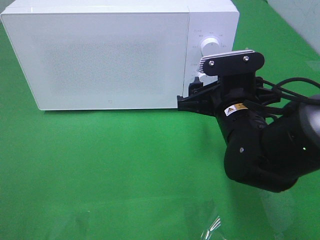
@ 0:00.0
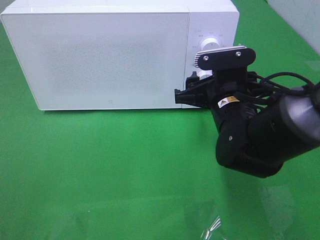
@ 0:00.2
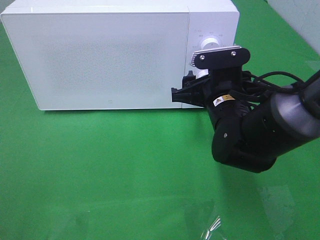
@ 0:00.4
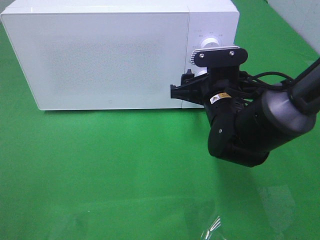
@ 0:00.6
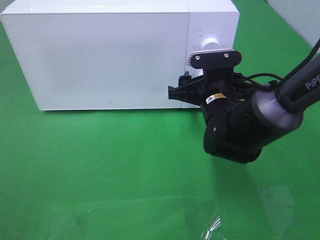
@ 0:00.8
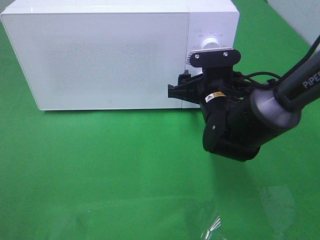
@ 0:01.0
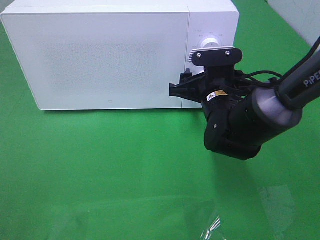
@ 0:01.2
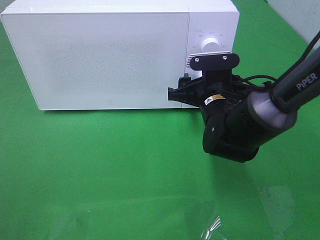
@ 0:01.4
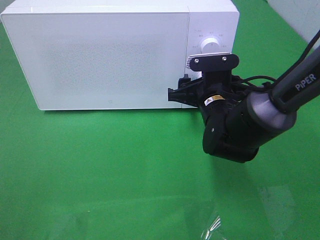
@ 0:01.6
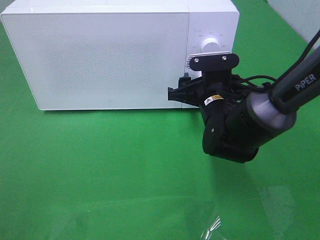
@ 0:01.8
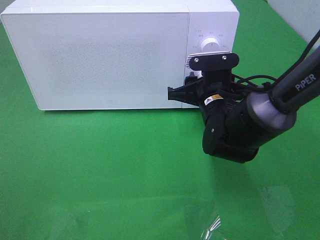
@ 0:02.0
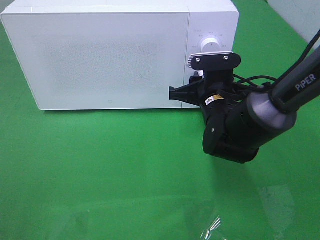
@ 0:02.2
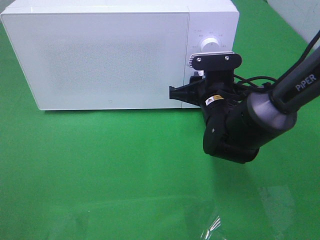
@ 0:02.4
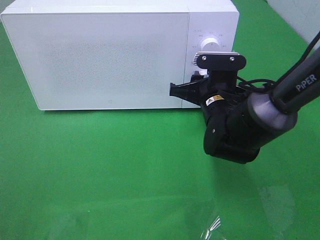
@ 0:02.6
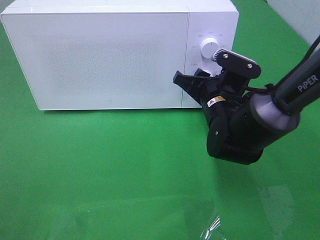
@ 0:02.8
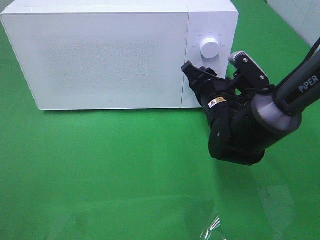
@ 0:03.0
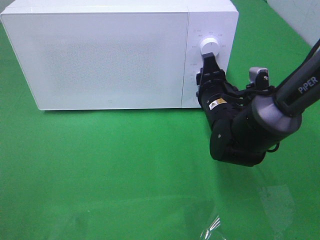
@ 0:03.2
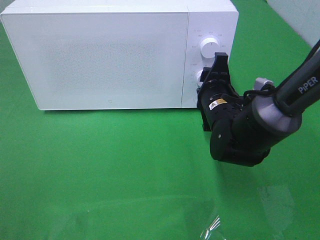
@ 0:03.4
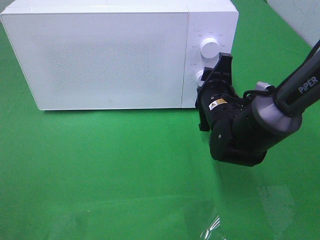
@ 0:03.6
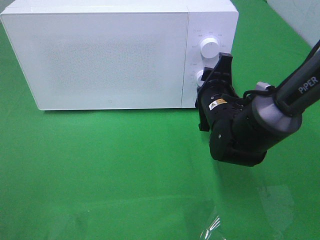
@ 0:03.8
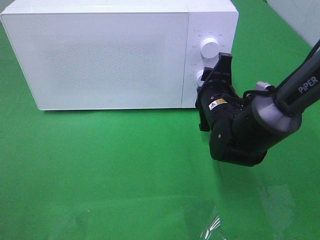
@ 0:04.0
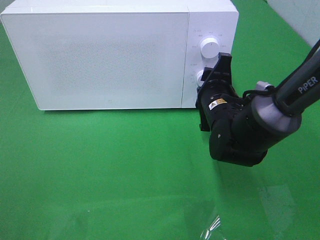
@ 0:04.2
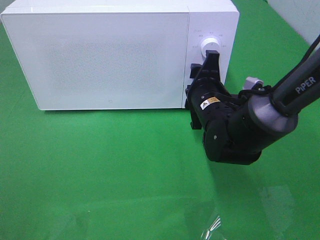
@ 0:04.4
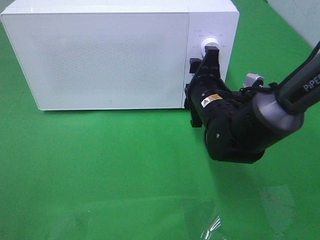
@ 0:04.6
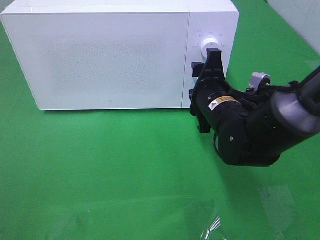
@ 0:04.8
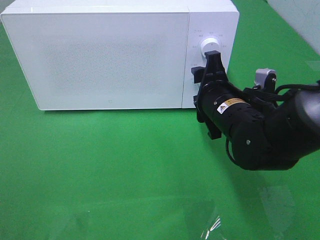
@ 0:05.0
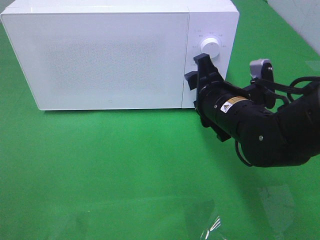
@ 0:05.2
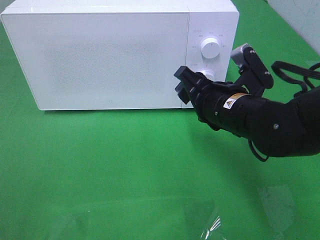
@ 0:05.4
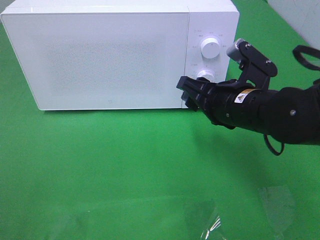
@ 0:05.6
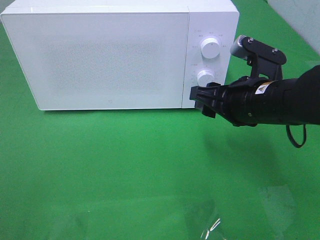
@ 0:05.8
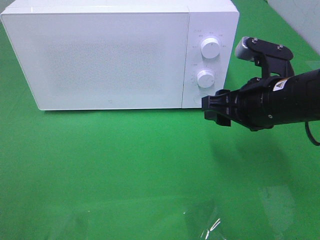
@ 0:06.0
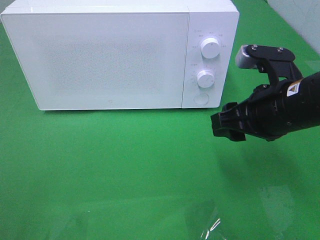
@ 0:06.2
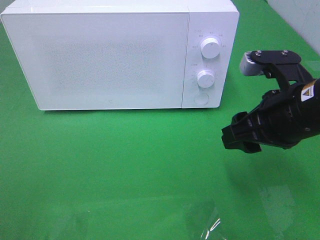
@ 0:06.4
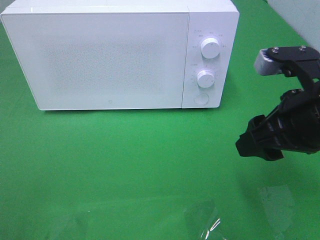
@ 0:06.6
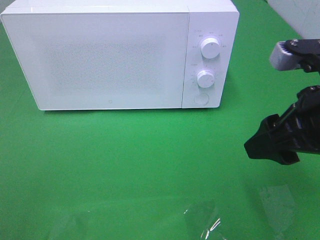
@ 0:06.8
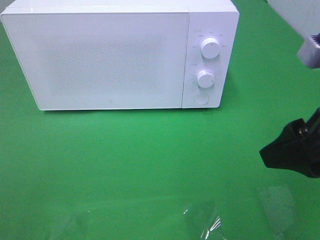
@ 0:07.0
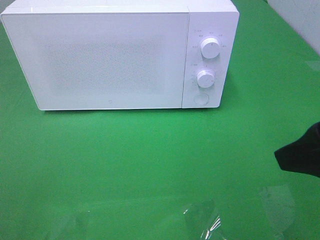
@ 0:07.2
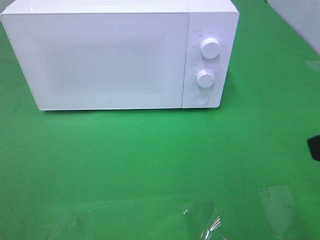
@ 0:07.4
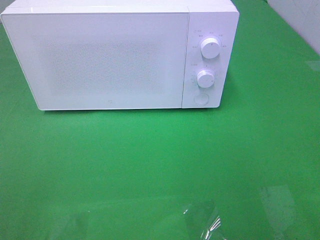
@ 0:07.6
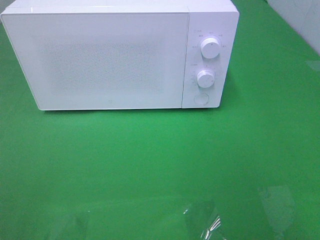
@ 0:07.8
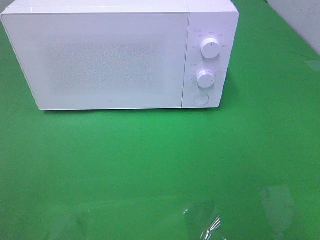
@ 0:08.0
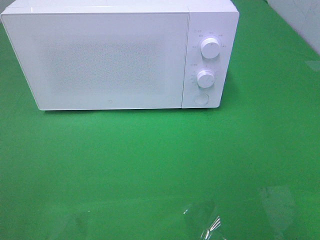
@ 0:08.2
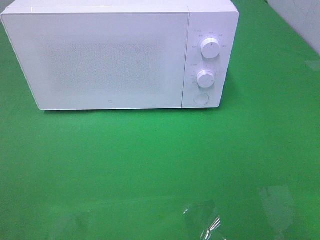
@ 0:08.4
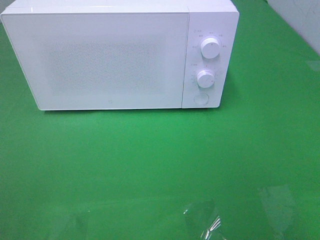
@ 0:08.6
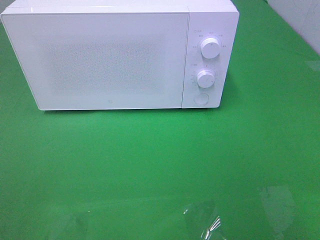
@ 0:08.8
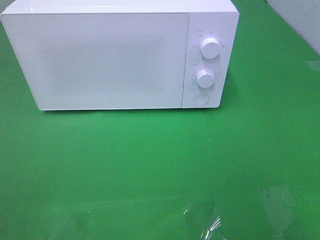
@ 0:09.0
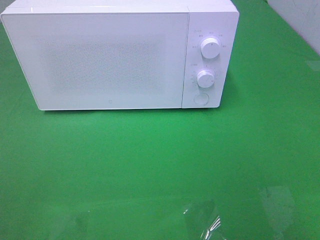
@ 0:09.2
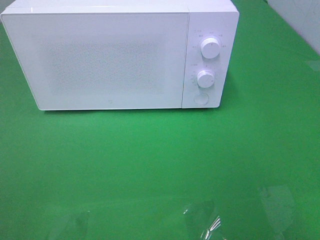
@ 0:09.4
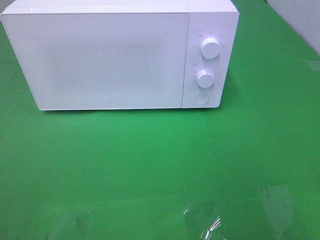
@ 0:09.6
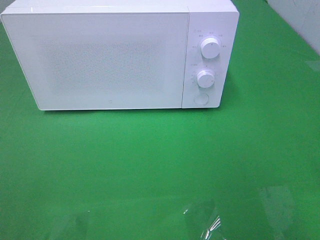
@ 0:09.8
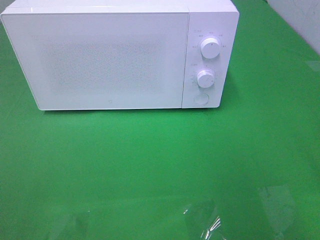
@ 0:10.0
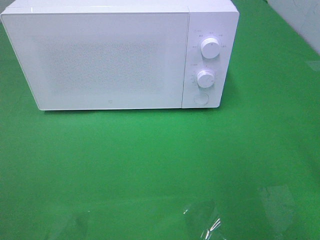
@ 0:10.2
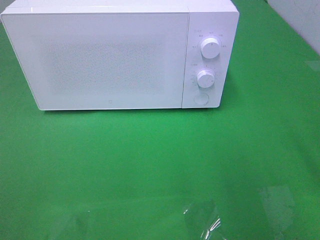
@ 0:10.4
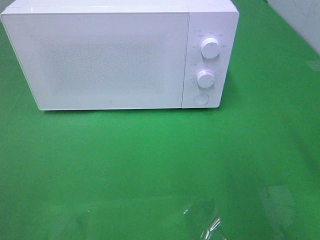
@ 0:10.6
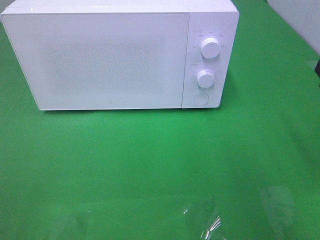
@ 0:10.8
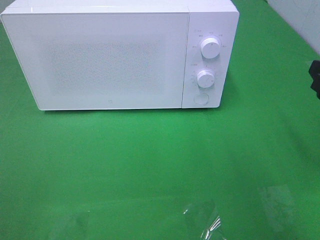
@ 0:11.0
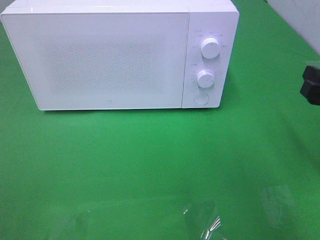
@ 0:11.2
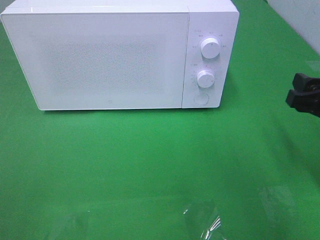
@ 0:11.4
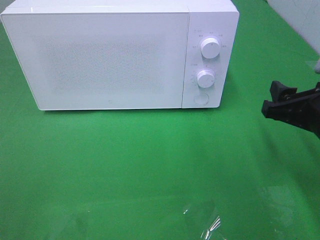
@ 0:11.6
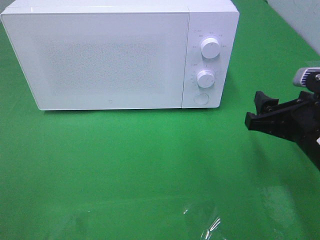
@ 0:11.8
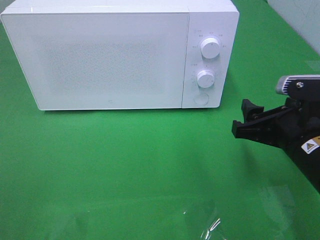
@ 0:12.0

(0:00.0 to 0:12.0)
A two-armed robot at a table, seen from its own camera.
Task of the whole recording: Heat the burger.
Step, 0:00.0 - 0:04.4: Right hand: twist timer button.
0:00.0 - 0:01.6: The right gripper shifts some 5 cm forward.
0:01.6 - 0:03.0: The right gripper closes its fingers.
0:04.4 - 0:06.0: The right gripper moves upward, to the right and backward, about 10 cm.
0:06.0 - 0:07.6: The right gripper is displaced backward, upward and to the right by roughly 25 cm.
0:10.4 - 0:12.0: The right gripper moves downward and to the left, about 15 cm.

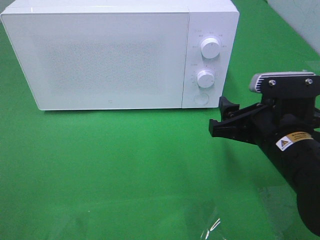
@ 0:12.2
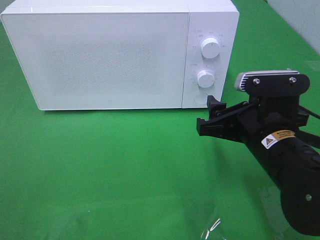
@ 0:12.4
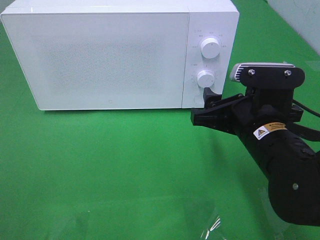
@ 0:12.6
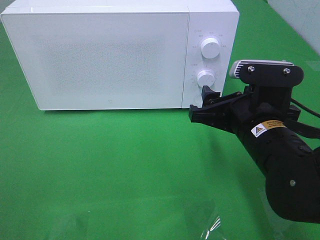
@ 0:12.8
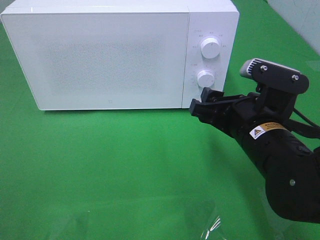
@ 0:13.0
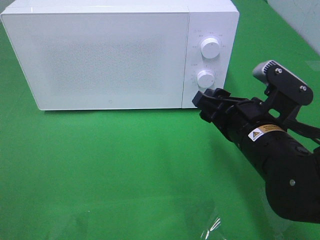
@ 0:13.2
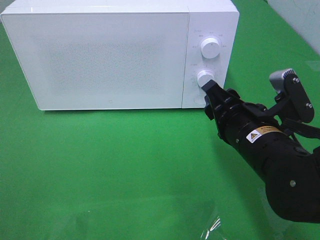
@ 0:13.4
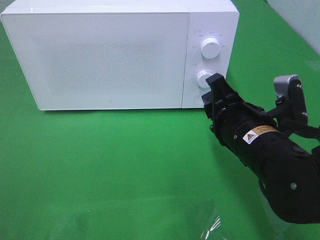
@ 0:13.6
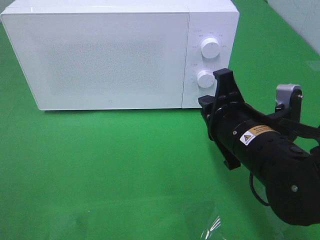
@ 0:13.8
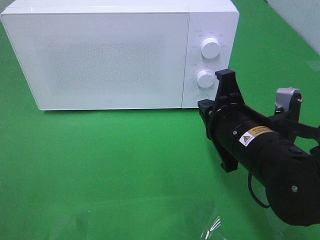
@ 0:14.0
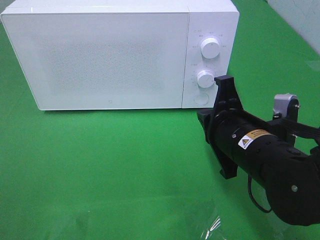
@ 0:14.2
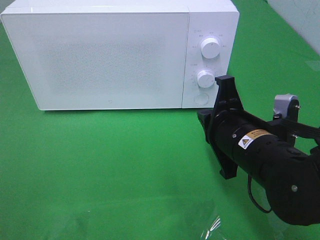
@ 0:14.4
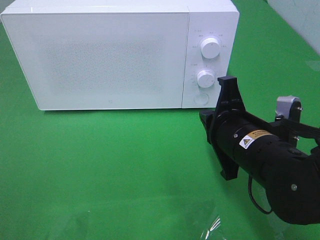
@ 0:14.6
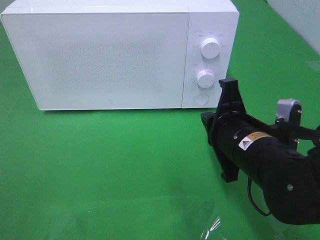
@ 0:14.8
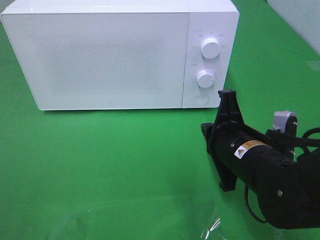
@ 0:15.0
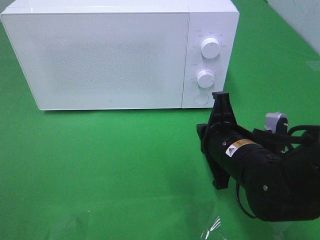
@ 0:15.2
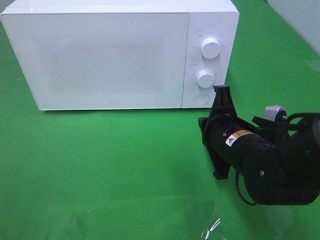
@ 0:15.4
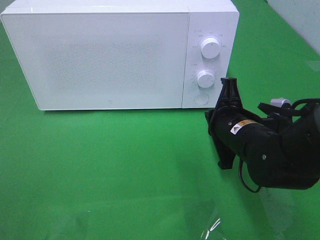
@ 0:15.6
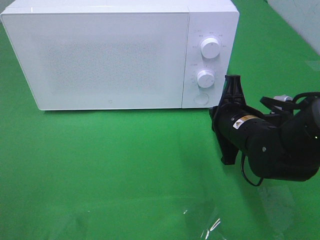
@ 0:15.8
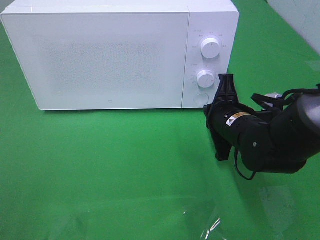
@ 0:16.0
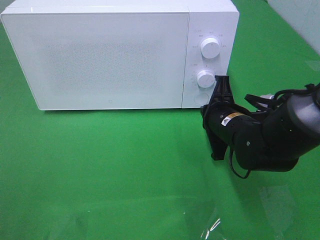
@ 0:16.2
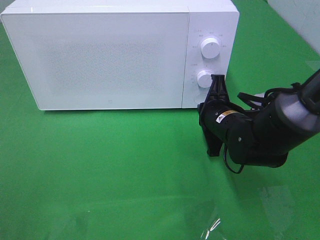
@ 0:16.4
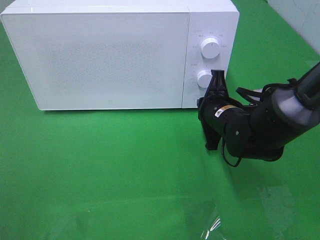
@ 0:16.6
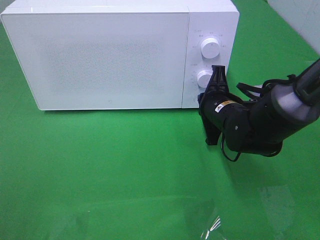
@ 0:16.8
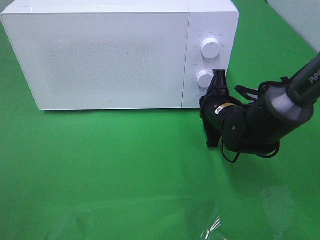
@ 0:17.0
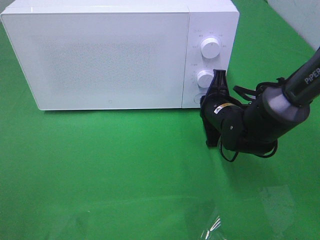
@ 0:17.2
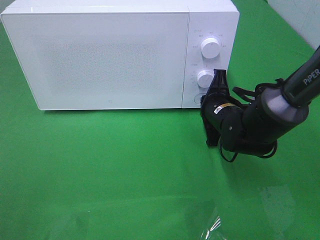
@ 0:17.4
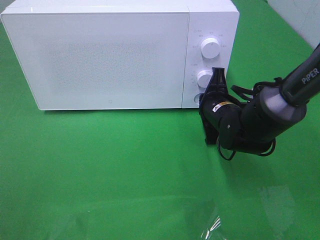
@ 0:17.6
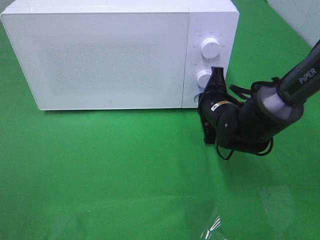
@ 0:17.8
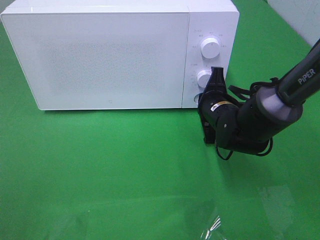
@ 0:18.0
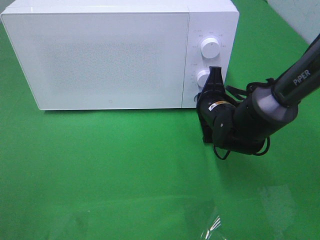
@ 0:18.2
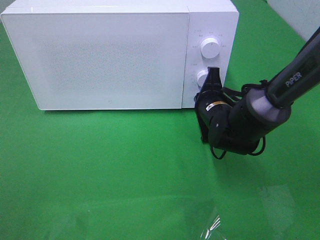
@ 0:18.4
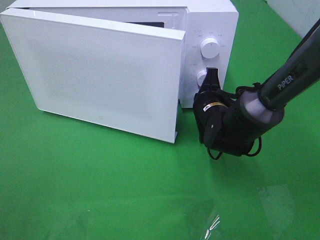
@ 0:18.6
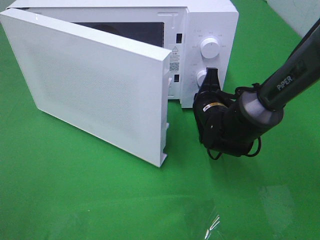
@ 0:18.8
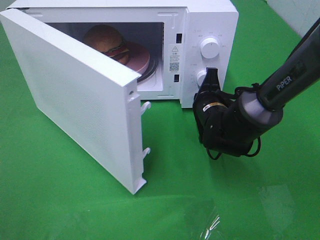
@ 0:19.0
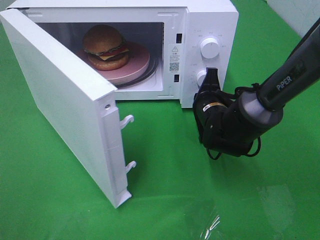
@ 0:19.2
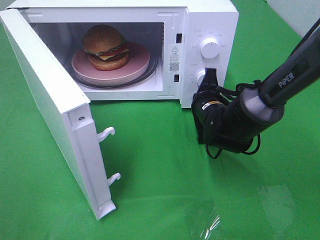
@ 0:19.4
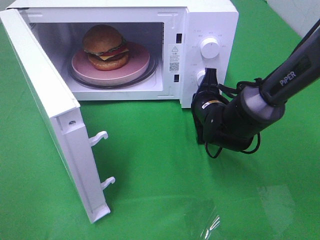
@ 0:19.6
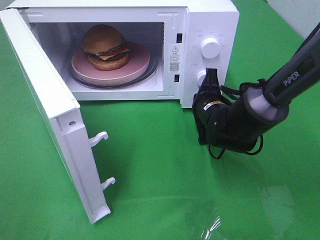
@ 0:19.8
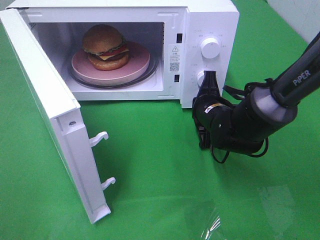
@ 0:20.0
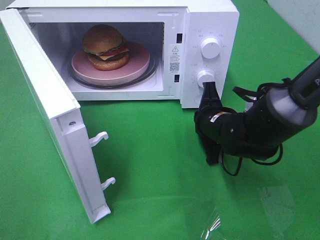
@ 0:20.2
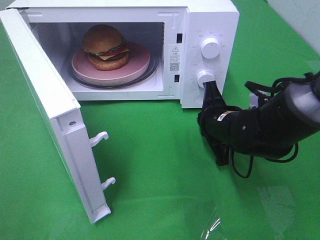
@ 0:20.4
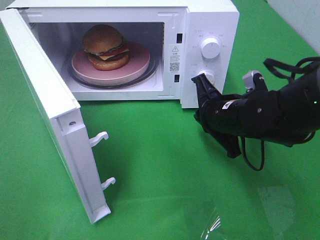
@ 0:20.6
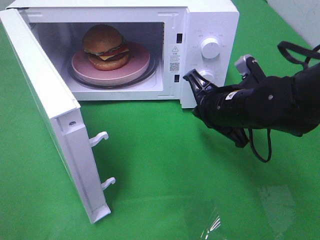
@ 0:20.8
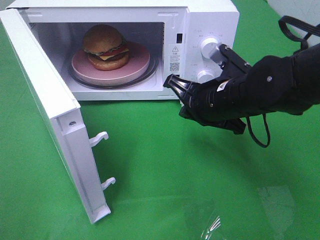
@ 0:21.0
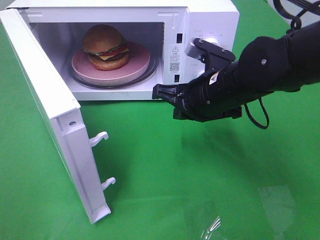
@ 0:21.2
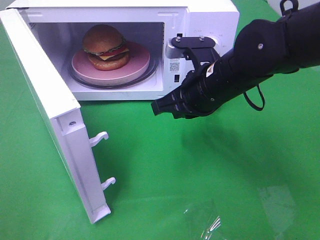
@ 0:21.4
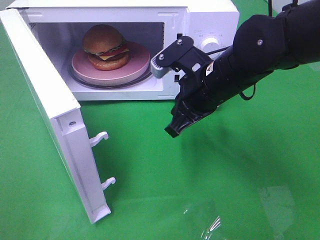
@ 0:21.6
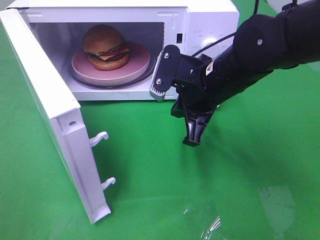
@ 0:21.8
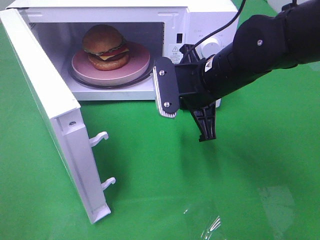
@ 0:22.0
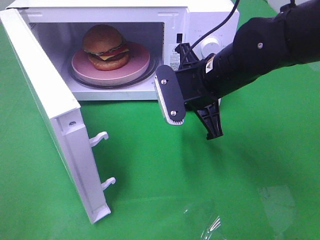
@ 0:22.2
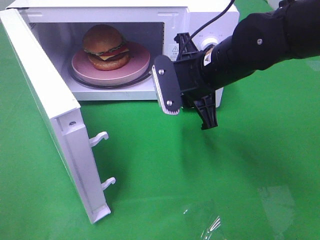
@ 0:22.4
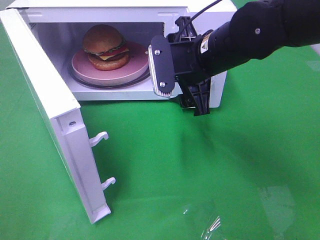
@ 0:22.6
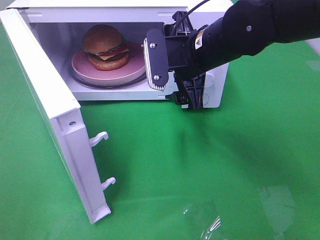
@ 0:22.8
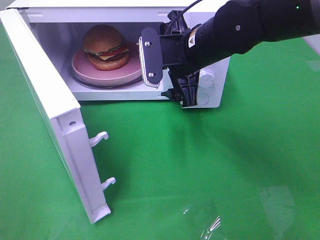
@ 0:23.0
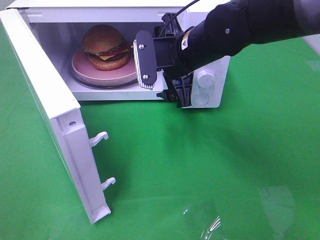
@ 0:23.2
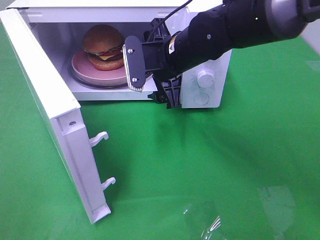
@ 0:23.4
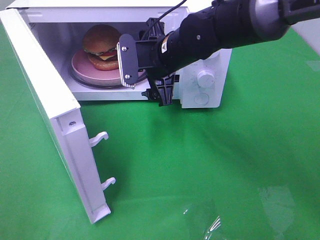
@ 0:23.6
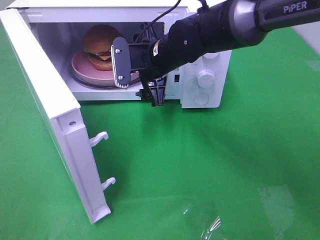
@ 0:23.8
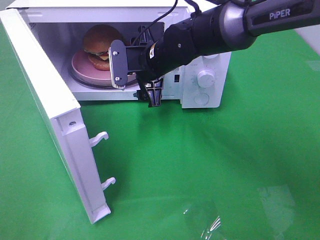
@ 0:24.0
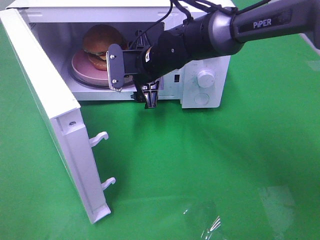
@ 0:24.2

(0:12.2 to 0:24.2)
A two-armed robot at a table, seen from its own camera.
Task of the whole recording: Heat the burger.
Step, 0:12.2 - 0:20.0: Right hand: press the switch.
0:12.2 - 0:13.8: The right gripper closes.
0:13.8 - 0:15.2: The grippers move only a little.
0:15.2 - 0:16.6: The right gripper shifts some 10 cm forward.
0:16.6 - 0:18.2: The grippers move only a little.
0:19.8 - 0:21.2: The right gripper travels upward and backward by about 10 cm.
0:21.2 - 0:22.6: The right gripper shifts by approximately 5 cm, and opens its fingers.
0:22.6 - 0:24.2: The right gripper travels forward, to the left and downward by about 15 cm.
